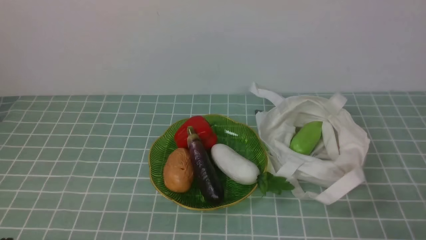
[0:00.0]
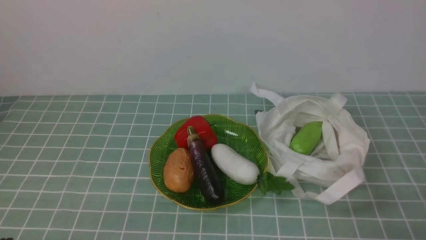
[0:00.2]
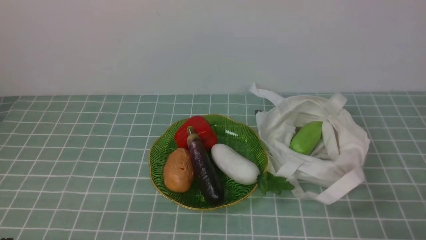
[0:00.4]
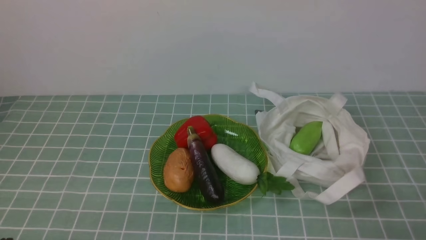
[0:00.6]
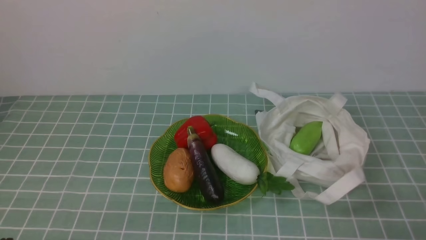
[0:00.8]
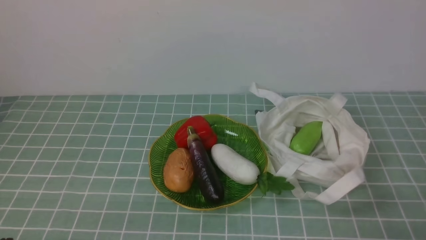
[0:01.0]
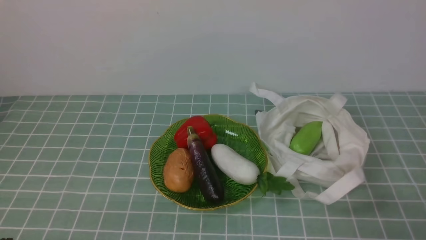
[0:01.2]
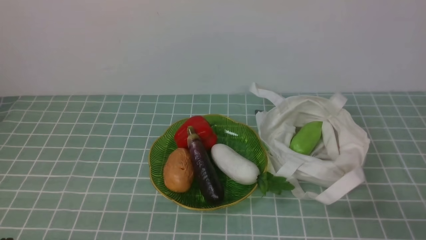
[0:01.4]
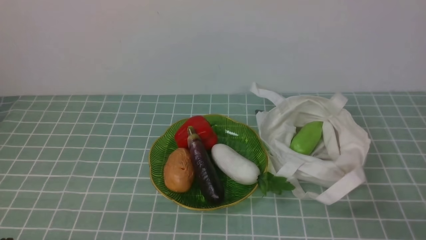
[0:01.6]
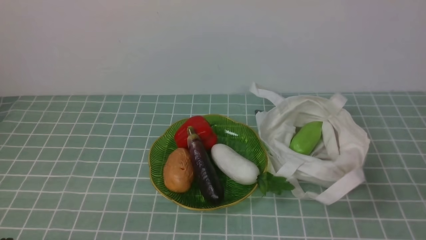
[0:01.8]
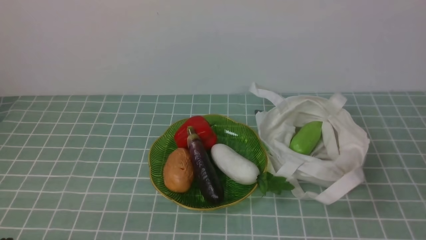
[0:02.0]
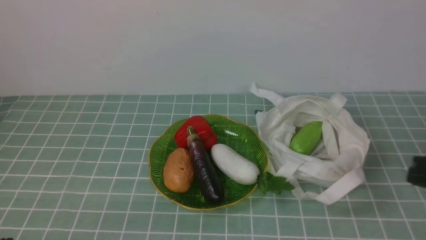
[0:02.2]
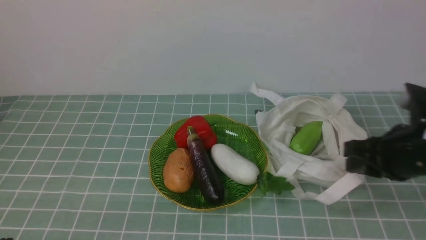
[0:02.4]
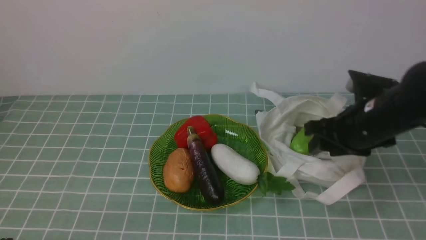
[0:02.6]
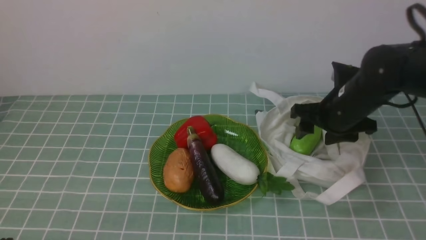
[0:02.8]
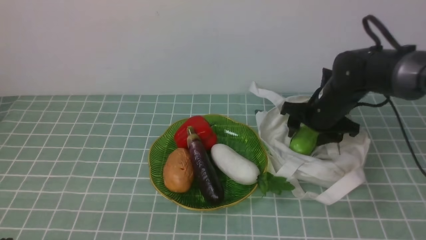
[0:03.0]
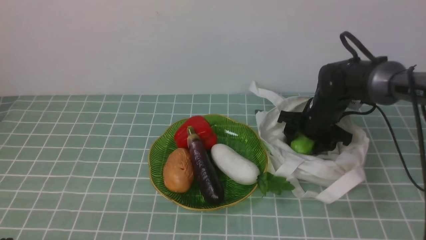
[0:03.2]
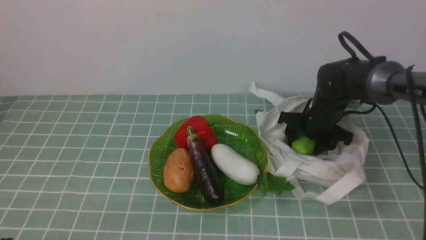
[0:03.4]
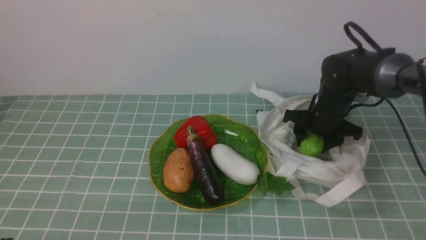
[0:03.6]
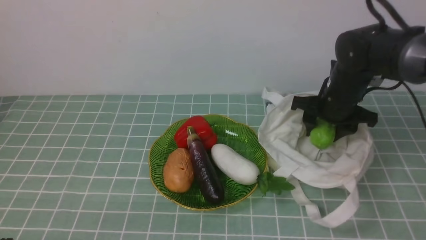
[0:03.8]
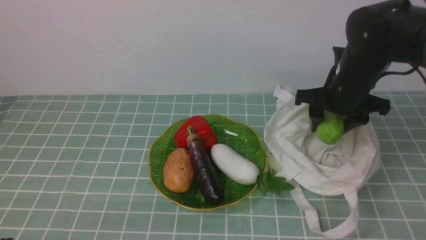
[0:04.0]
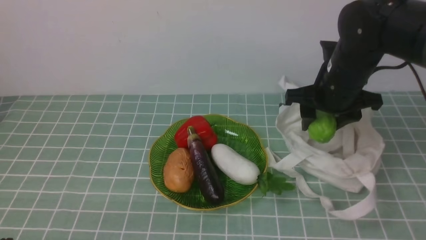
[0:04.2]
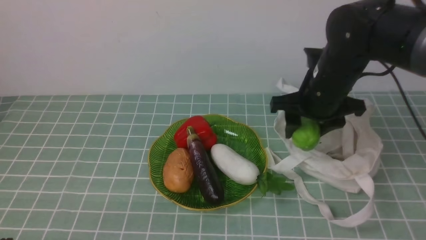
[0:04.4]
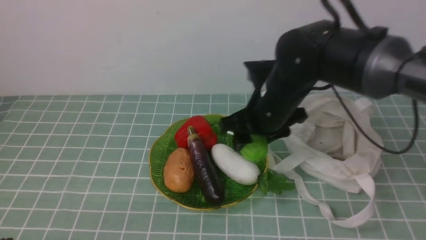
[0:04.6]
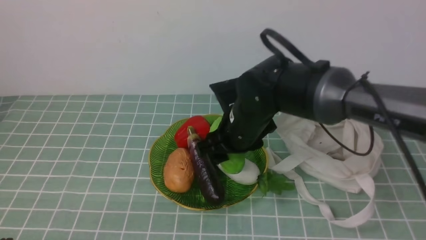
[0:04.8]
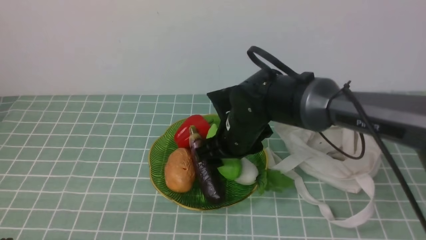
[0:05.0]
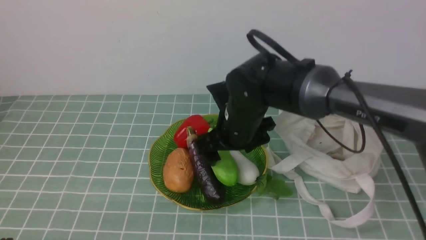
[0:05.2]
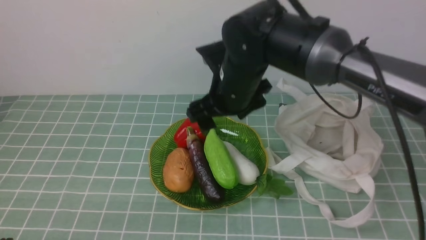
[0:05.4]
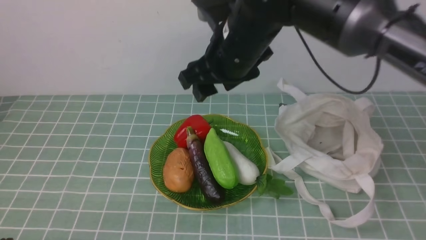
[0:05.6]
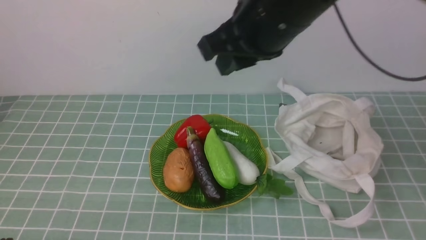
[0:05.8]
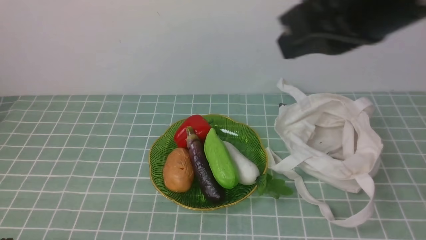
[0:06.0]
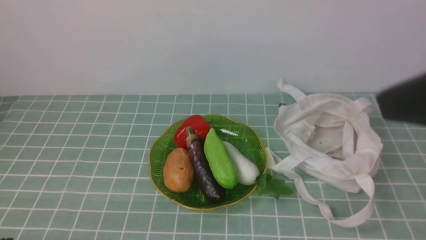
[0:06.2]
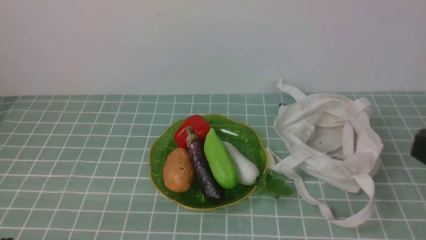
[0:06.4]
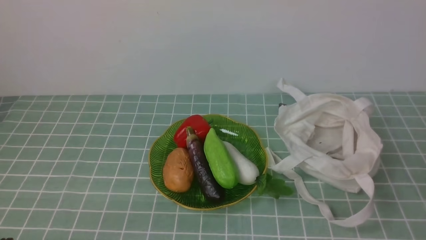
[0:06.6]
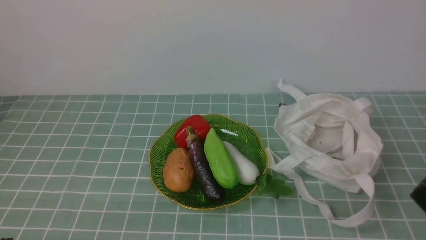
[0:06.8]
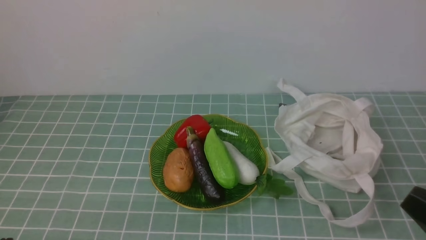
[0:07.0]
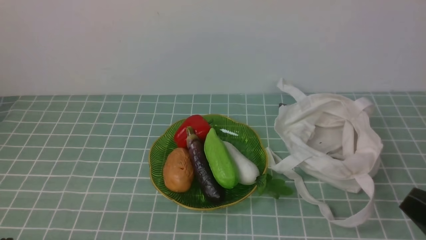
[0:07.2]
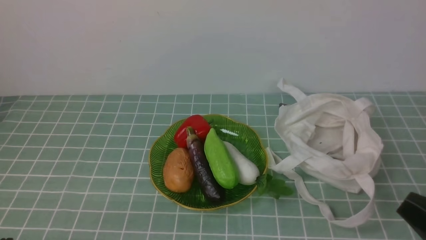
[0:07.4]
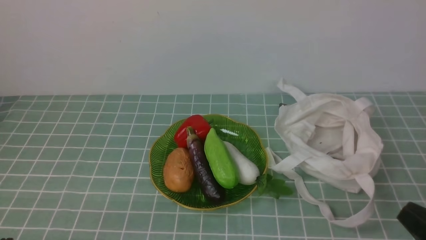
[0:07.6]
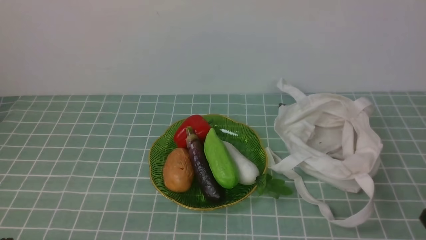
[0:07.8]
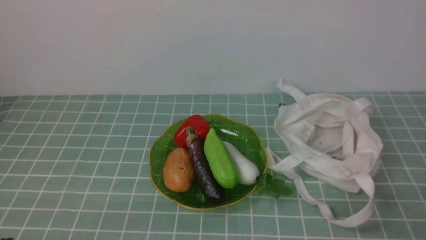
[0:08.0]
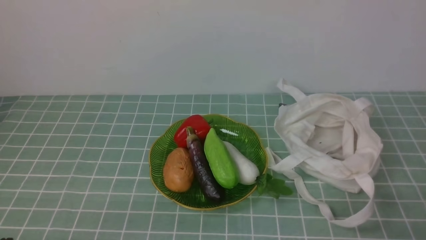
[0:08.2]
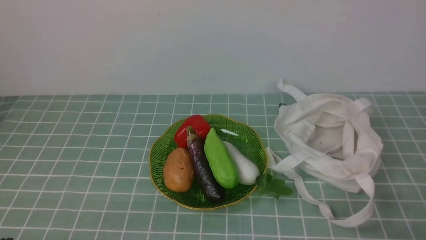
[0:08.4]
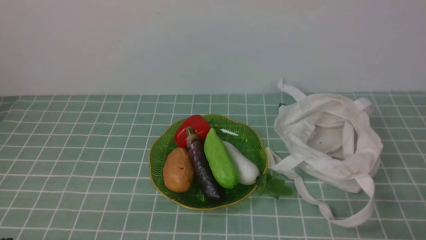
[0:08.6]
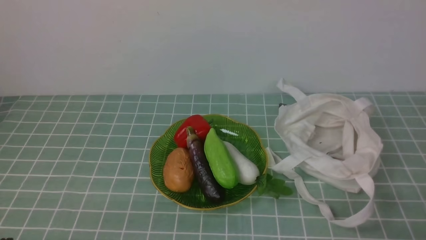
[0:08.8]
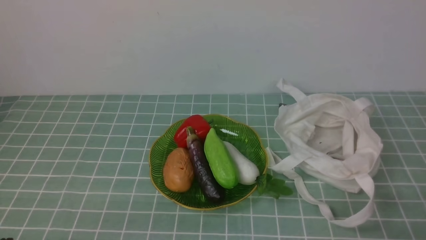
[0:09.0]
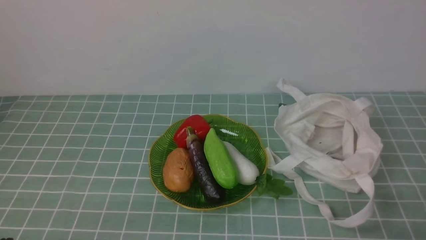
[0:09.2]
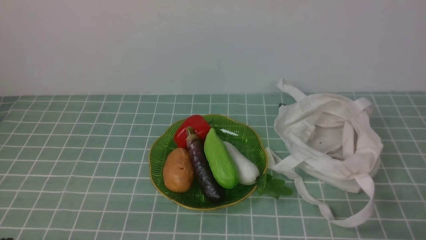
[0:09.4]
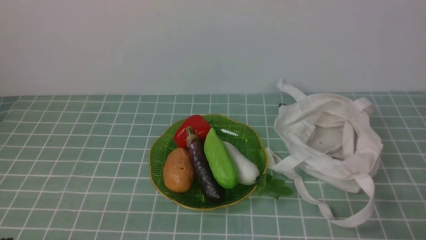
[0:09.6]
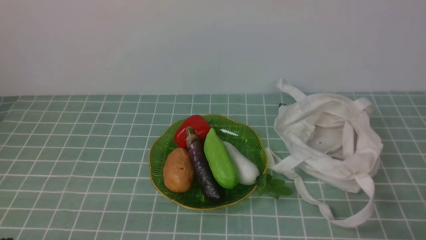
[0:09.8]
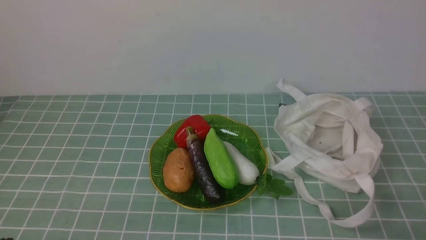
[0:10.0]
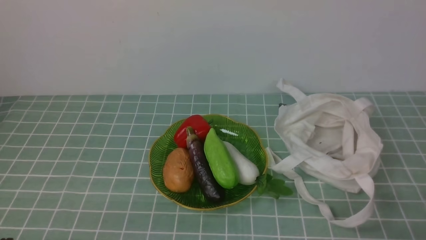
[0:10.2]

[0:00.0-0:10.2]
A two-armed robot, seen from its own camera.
Task of the whole recording: take vegetables from cloth bag on blue coffee tablecloth place on plate.
Step, 0:00.0 to 0:03.4: Grasp the bitter melon with right gripper.
Step, 0:03.6 to 0:05.2: Place the bitter melon on the plate with right gripper.
0:01.4 to 0:03.0: The right gripper travels forward by some 35 cm, and opens.
0:03.0 to 0:04.4: The right gripper shifts some 10 cm upward and to the left.
0:04.4 to 0:05.8: The right gripper heads upward and backward, covering roughly 20 cm, and closes.
0:05.8 to 0:07.2: The right gripper travels backward, to the right and downward by approximately 30 cm.
0:07.2 to 0:08.8: The right gripper shifts approximately 10 cm downward.
0:08.8 to 0:10.2: Both grippers stay put.

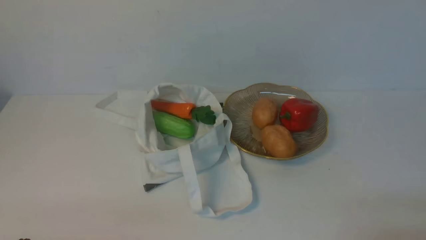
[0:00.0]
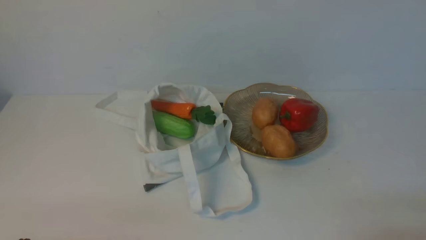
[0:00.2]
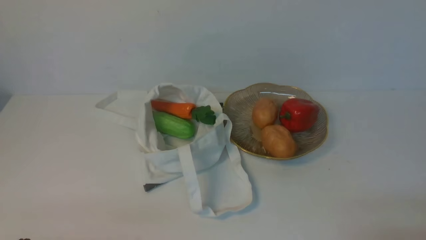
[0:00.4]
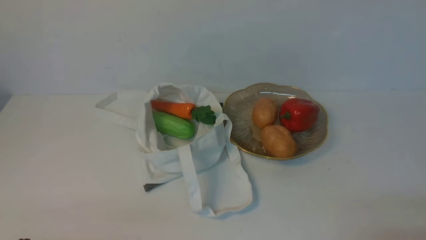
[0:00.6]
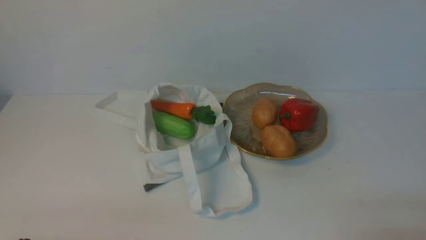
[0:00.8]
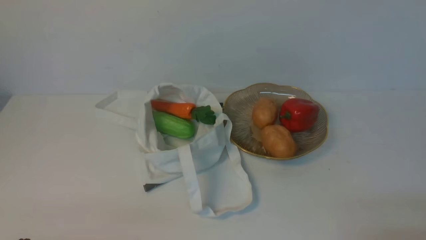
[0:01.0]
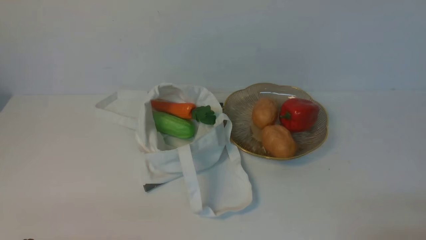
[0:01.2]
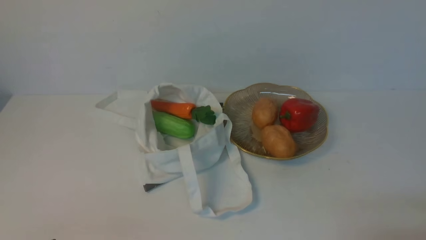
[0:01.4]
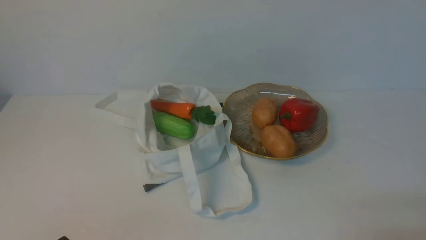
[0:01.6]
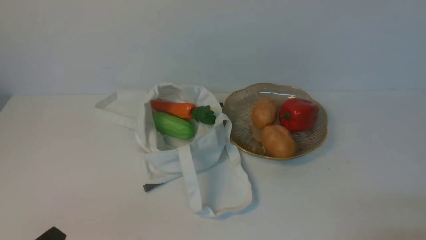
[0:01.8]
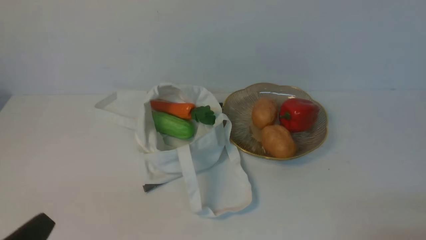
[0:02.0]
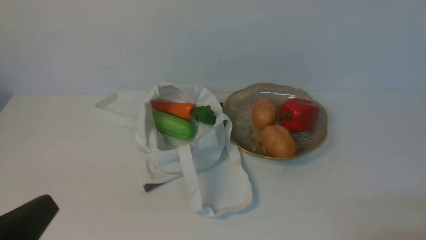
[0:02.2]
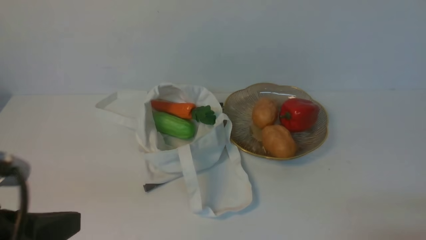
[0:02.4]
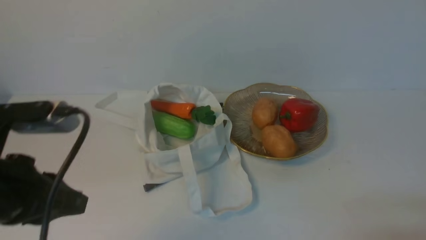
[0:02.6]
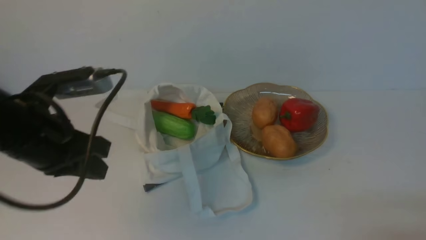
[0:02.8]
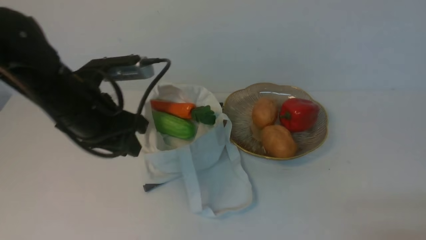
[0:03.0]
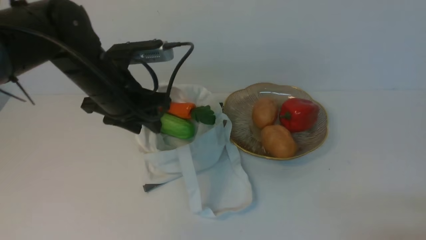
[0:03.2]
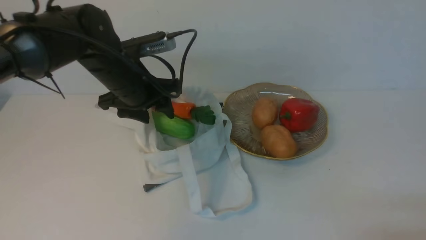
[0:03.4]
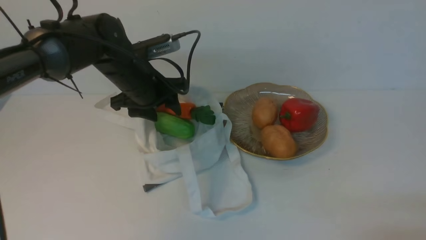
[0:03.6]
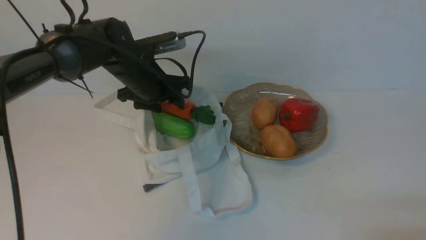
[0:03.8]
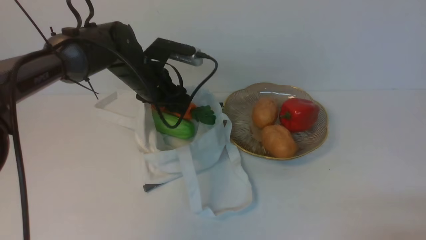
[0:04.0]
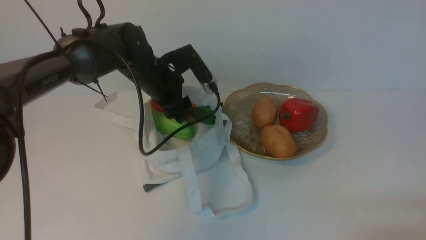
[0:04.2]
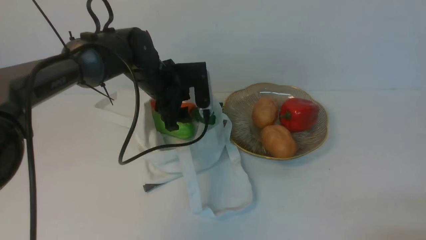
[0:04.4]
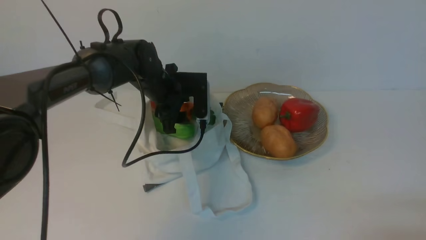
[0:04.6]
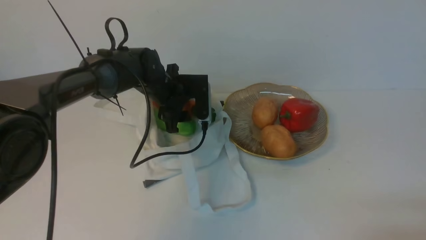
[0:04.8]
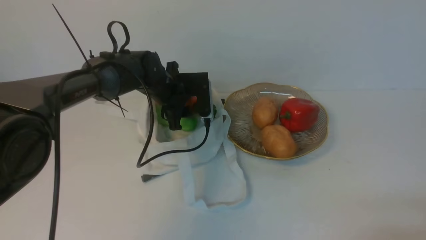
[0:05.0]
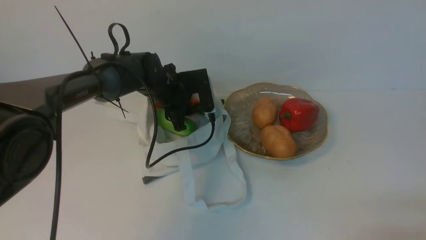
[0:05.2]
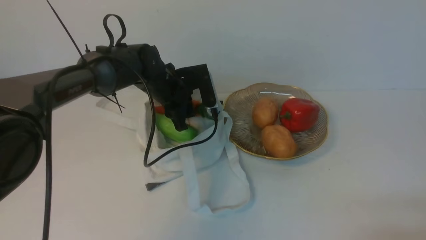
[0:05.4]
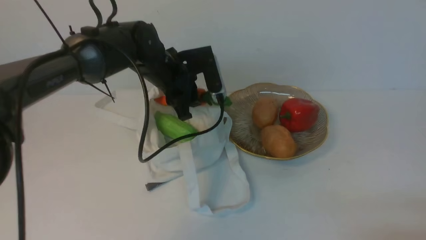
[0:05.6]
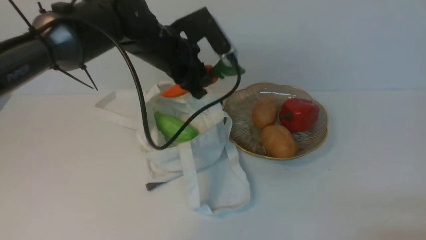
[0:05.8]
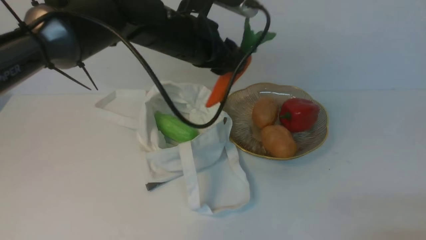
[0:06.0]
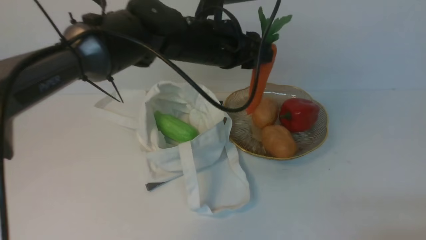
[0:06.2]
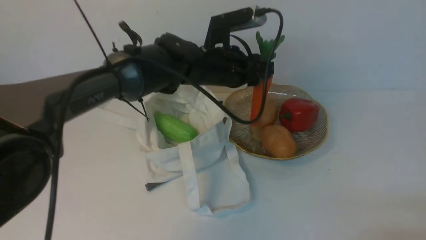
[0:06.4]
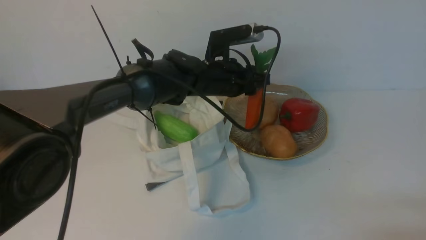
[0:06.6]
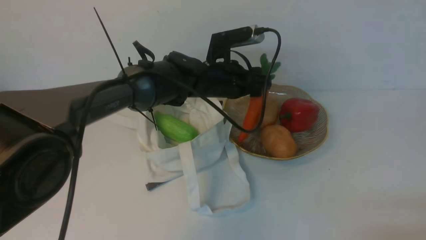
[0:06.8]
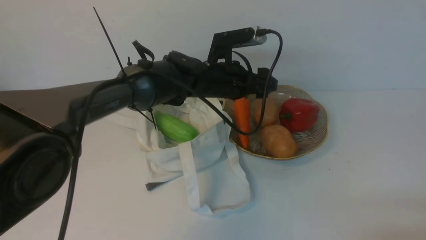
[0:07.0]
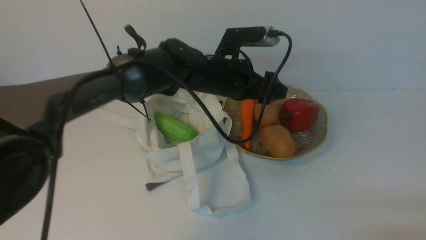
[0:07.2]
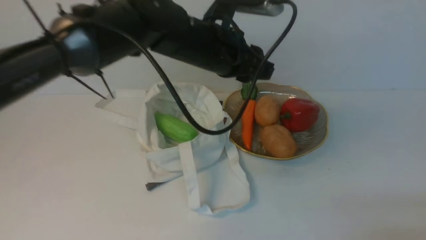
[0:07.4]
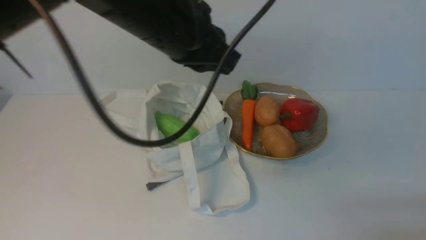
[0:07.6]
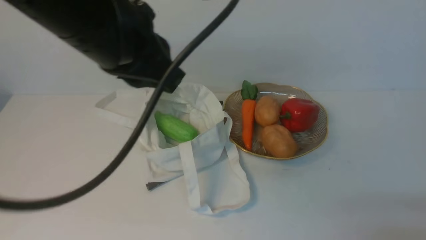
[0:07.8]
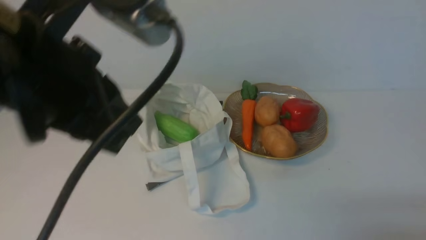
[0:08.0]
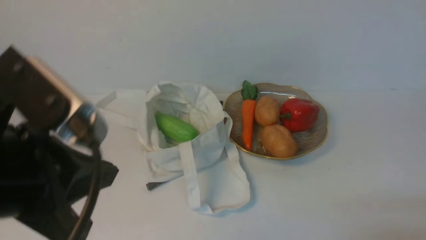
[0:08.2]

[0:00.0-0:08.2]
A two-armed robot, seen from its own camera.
Task of the whole recording: take vegetables from cloth bag on white table place on plate.
Step, 0:00.0 to 0:05.2: Grasp the carrot with left gripper.
Step, 0:05.4 to 0:07.2: Place the carrot on the plate with left gripper.
0:01.6 to 0:03.2: The left gripper goes about 30 cm forward, and opens its fingers.
0:03.2 to 0:05.0: The left gripper is displaced forward, downward and to the right by approximately 15 cm.
0:05.0 to 0:06.6: The left gripper heads to the right, covering approximately 10 cm, and moves about 15 cm upward and comes back.
0:06.6 to 0:08.2: The left gripper shifts about 40 cm backward, to the left and upward, and closes its fingers.
